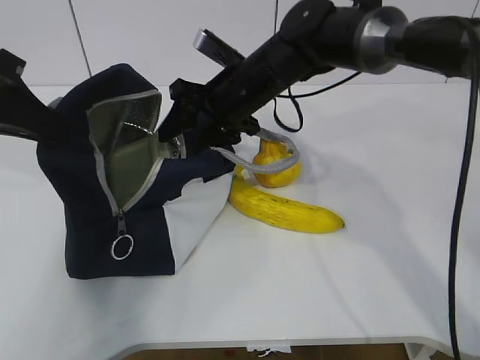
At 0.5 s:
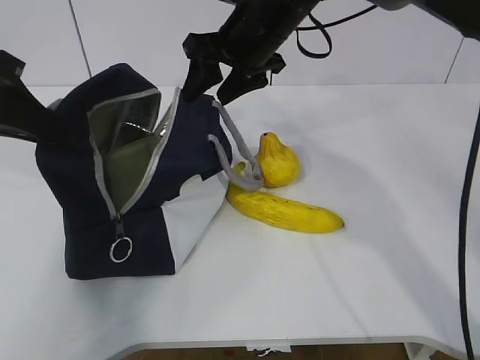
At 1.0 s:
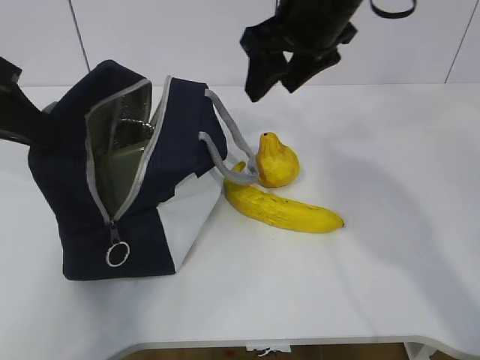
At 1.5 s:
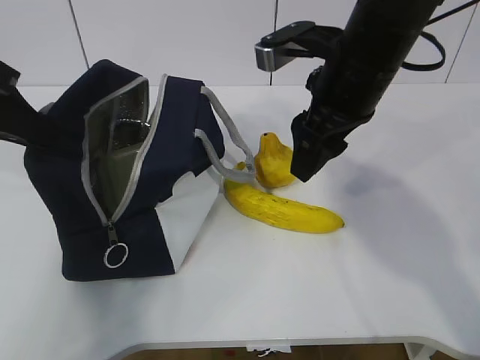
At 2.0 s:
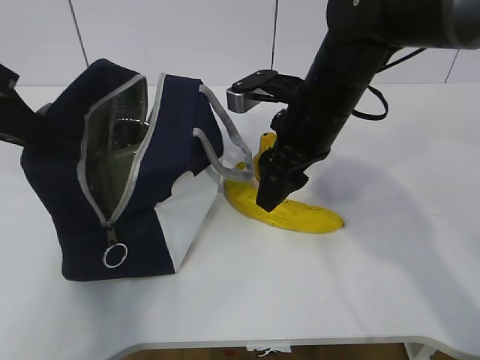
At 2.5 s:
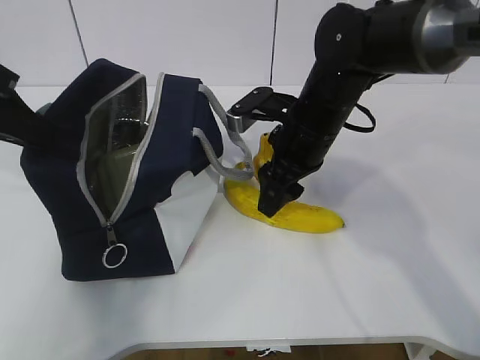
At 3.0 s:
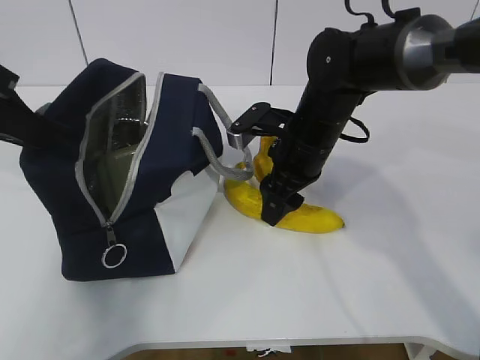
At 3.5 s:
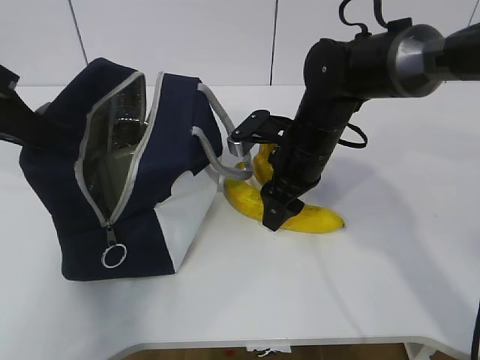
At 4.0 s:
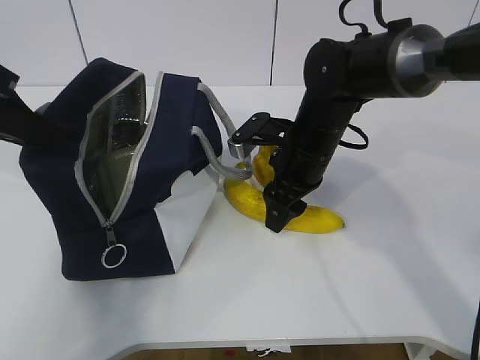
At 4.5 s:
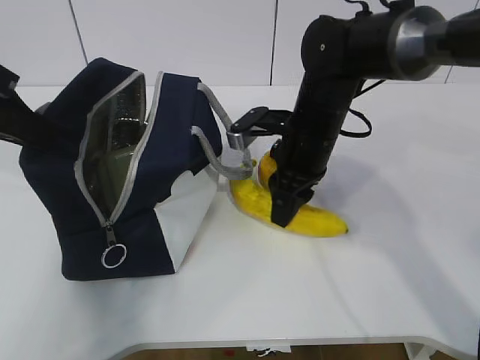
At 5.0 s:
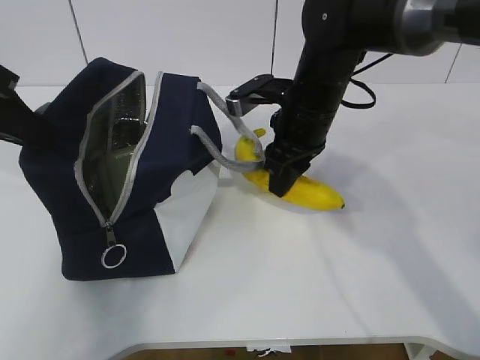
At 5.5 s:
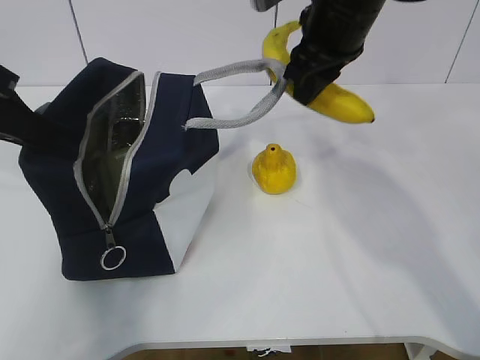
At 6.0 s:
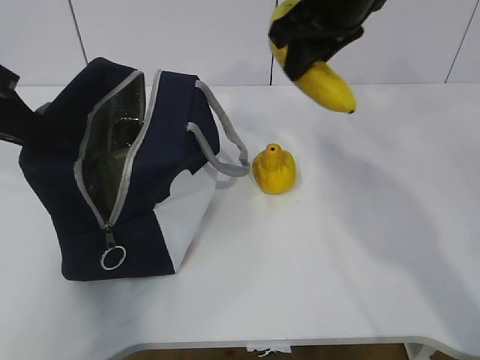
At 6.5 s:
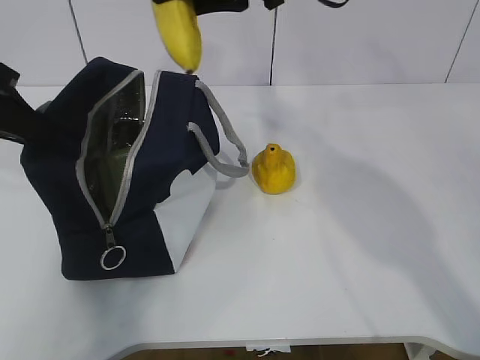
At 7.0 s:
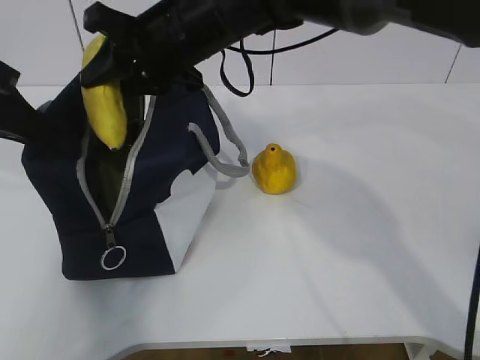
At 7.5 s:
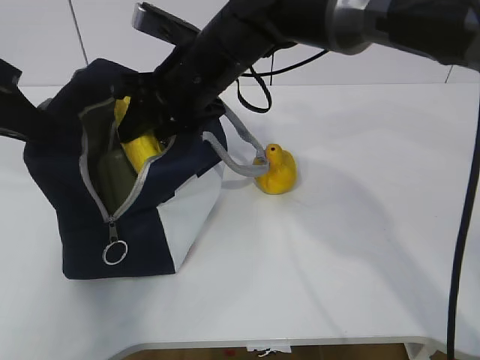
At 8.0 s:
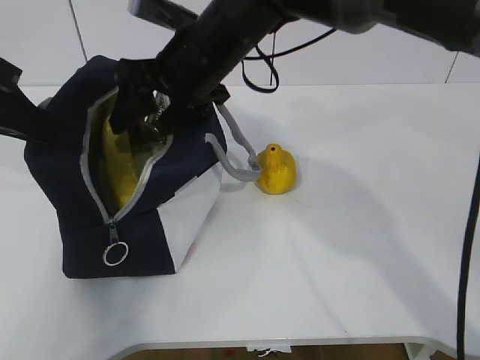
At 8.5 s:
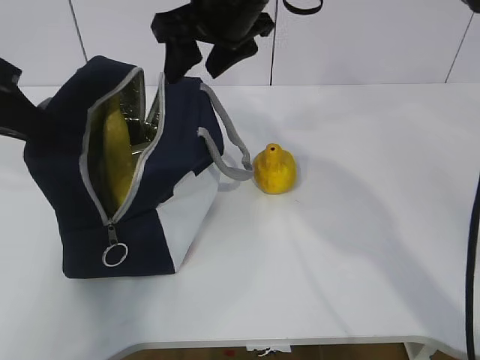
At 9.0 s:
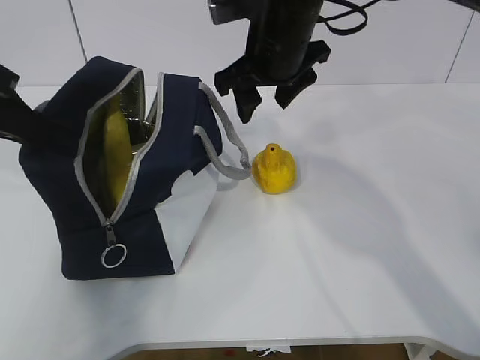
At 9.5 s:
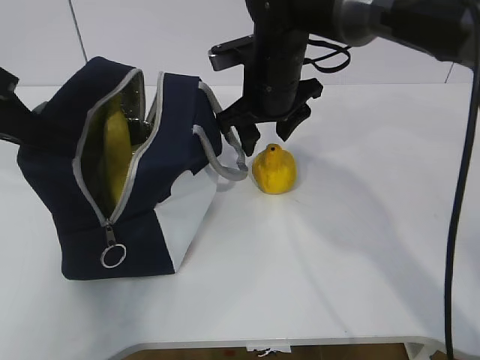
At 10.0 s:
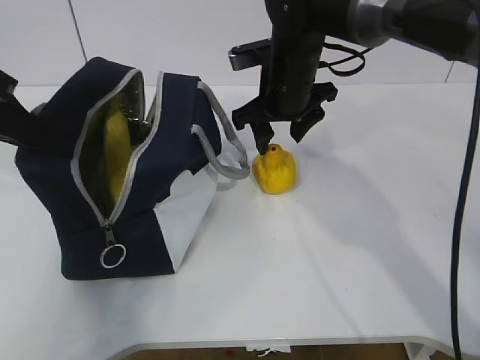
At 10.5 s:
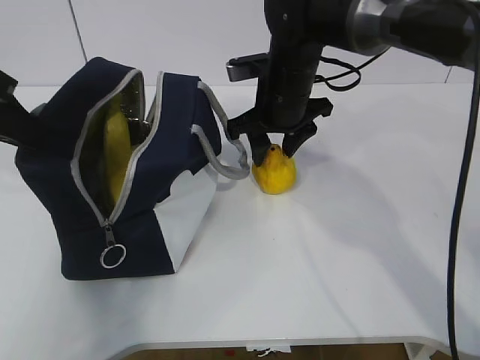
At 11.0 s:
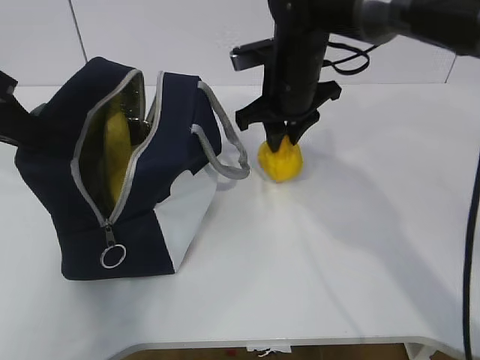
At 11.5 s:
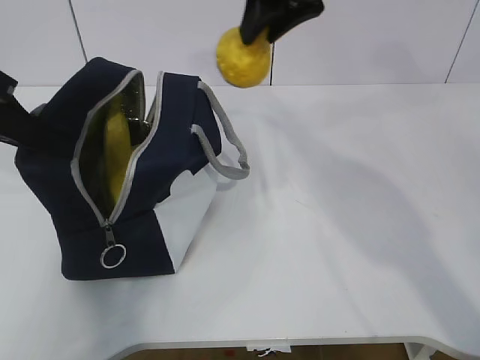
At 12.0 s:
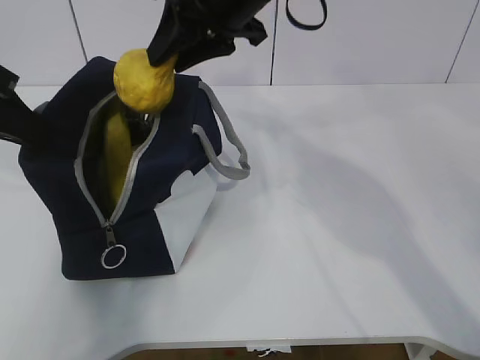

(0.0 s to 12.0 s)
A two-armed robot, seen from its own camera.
Step, 0.5 s - 4.0 s: Grasp the banana with the right gripper.
Step, 4.5 s - 8.0 s: Place the banana into the package with the right gripper.
Step, 8.5 s - 10.5 s: Grasp the pear with the right gripper.
0.0 s - 2.0 s: The right gripper is displaced backward and to the right by roughly 10 cm, and moves roughly 10 cm upward and comes back.
2.0 s - 4.0 s: The right gripper moves downward, some 5 cm.
4.0 s - 6.0 s: The right gripper moves upward, approximately 20 cm.
6.0 s - 8.0 s: The right gripper shifts some 15 cm to the left and downward, and opens up.
8.0 s - 10.0 s: The right gripper moves to the right and downward, about 10 cm.
10.0 s - 12.0 s: The right gripper heads upward and to the left, covering approximately 10 cm, and closes its fingers.

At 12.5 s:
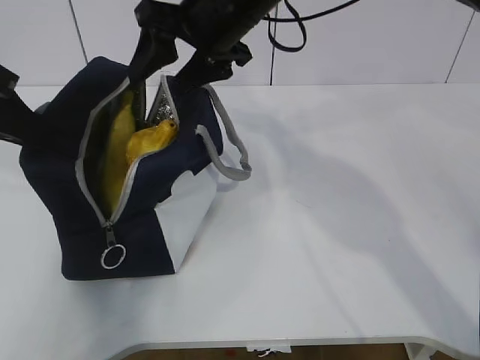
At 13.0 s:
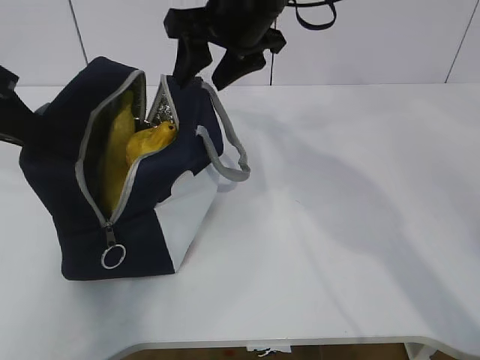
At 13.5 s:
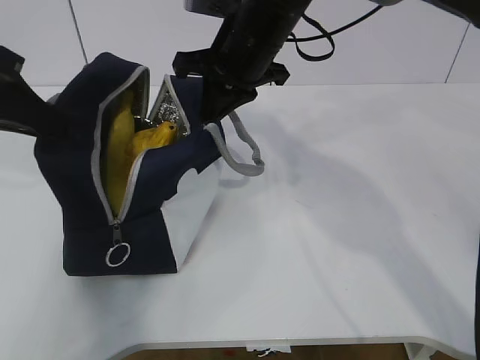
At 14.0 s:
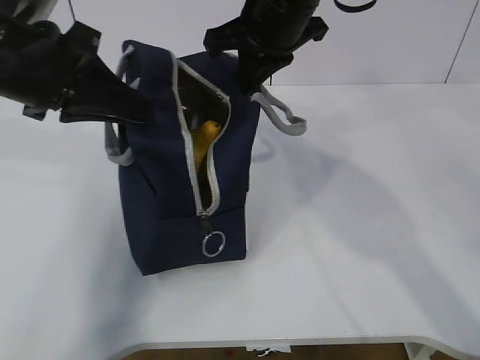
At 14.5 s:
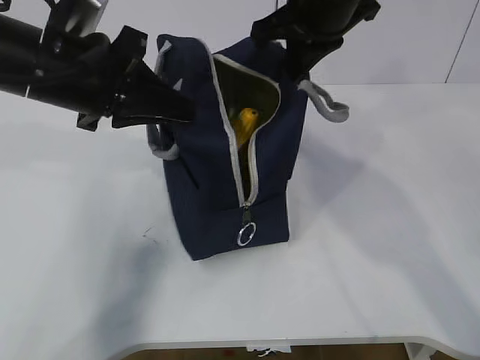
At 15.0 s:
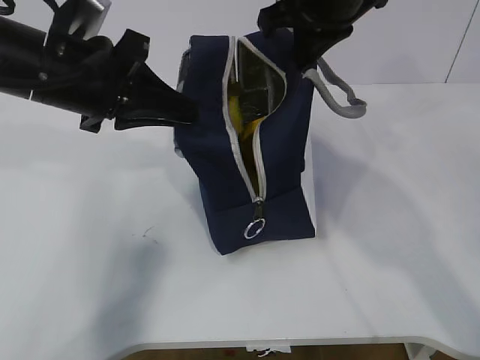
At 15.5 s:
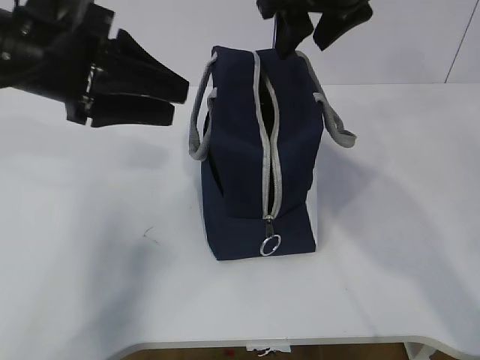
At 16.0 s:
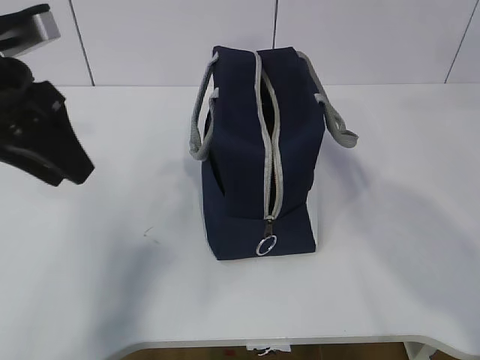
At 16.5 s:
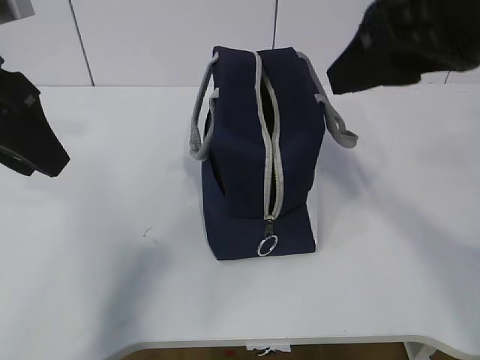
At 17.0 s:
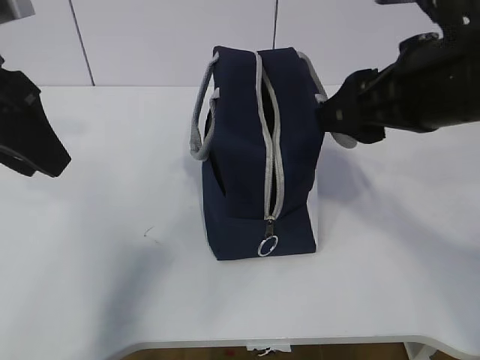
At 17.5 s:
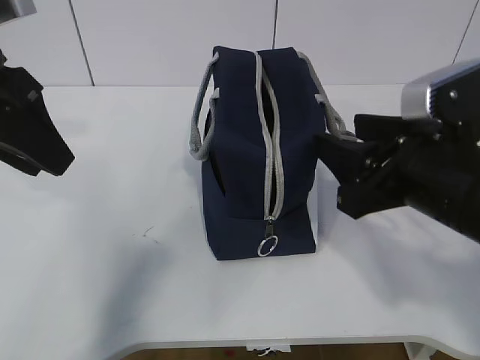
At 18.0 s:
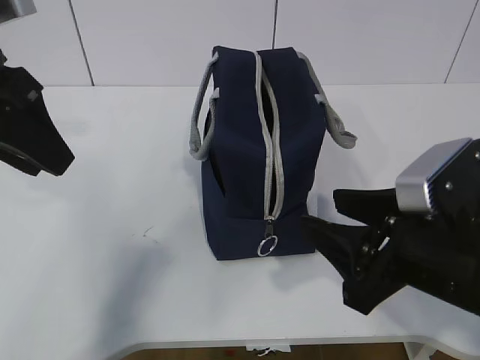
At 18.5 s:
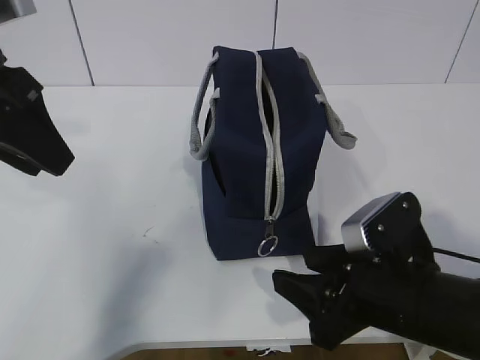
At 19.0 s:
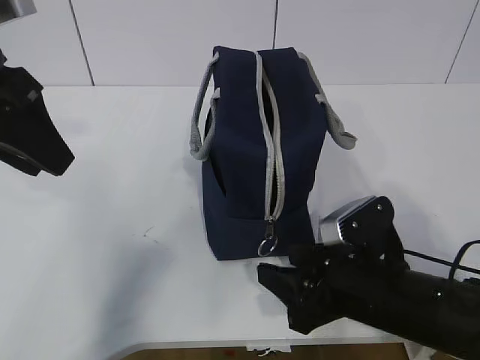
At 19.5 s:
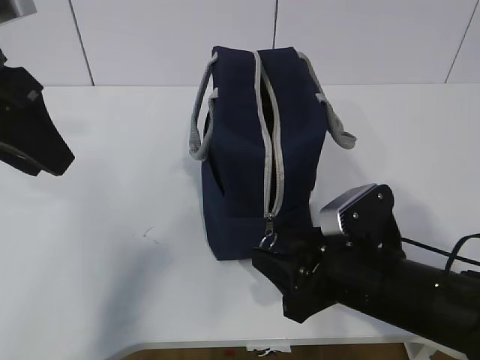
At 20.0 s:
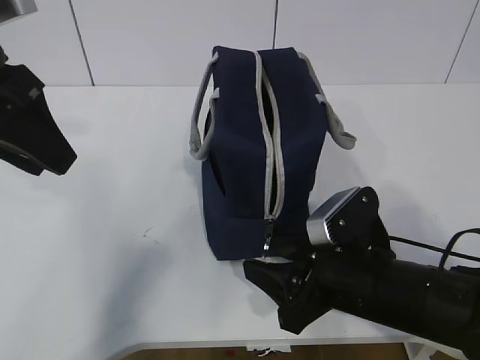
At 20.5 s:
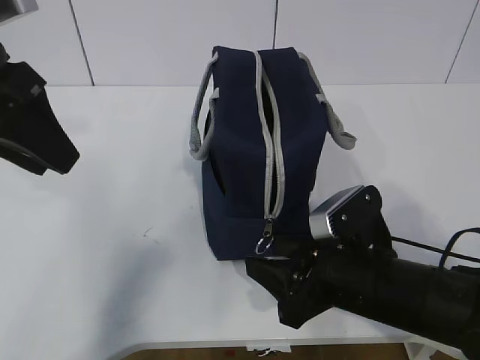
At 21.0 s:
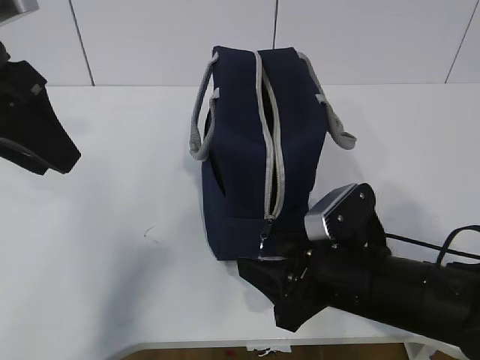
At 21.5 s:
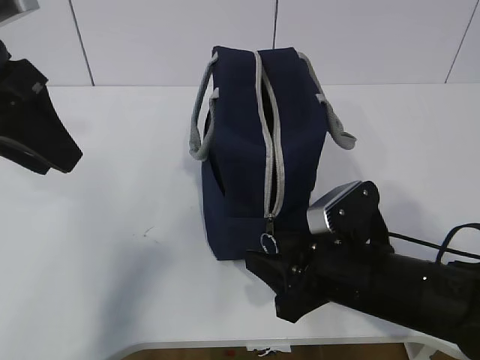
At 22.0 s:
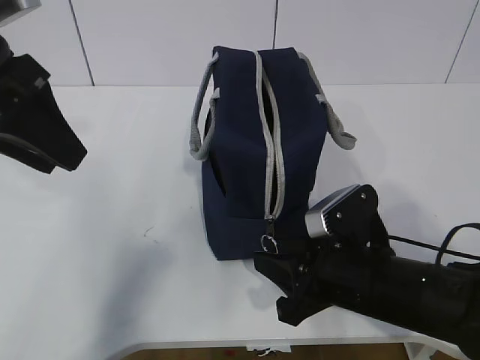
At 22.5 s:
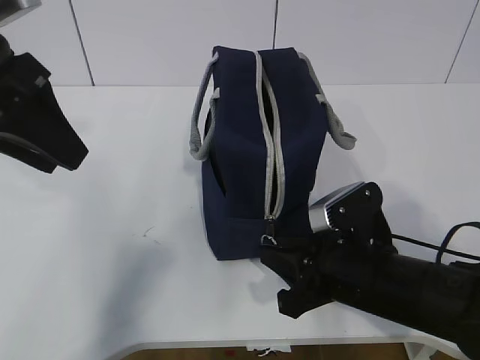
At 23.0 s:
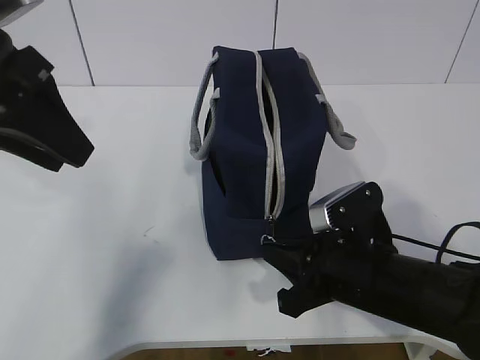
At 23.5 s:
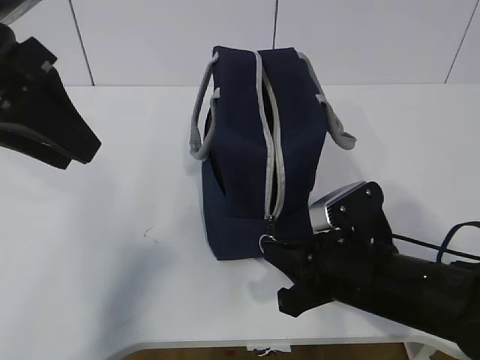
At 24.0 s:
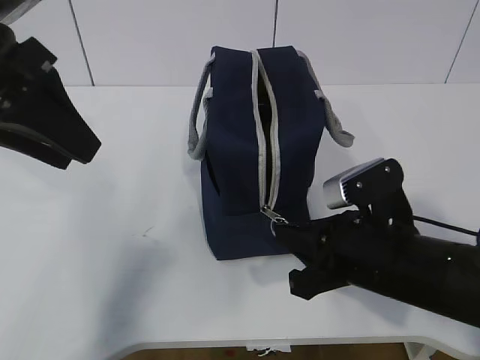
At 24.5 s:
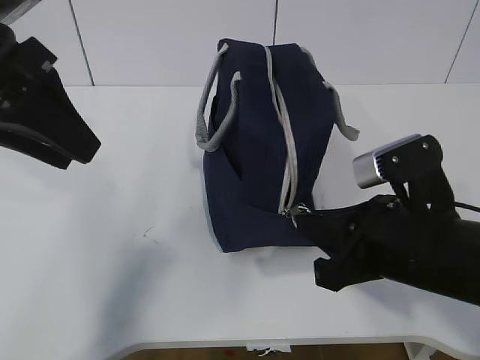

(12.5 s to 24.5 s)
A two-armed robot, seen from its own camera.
12.5 s - 14.5 s: The grippers both shift to the right by about 10 cm. The right gripper closes up.
14.5 s - 16.5 s: The right gripper shifts some 15 cm backward, and opens its fingers, while the left gripper shifts about 5 cm to the left, and opens up.
16.5 s - 18.5 s: The right gripper is displaced downward by some 25 cm.
18.5 s - 20.5 s: The grippers move only a little.
20.5 s - 22.5 s: The right gripper closes its fingers.
22.5 s - 24.5 s: The right gripper shifts about 5 cm upward.

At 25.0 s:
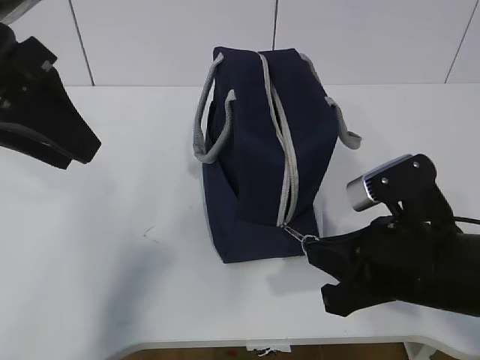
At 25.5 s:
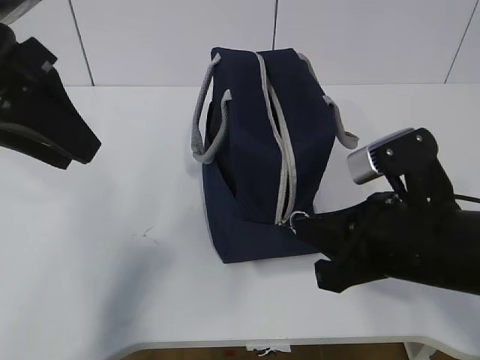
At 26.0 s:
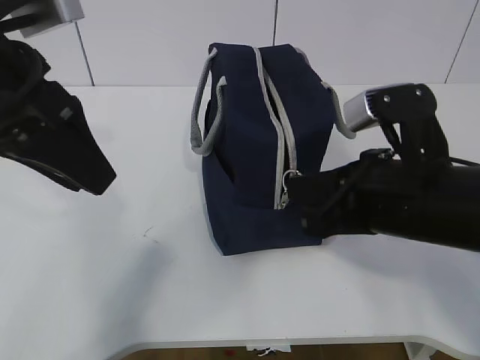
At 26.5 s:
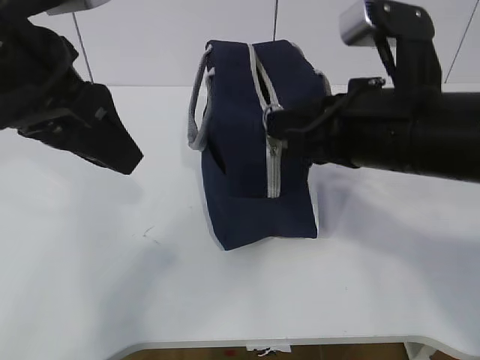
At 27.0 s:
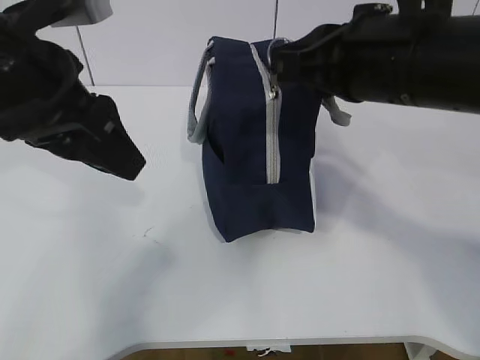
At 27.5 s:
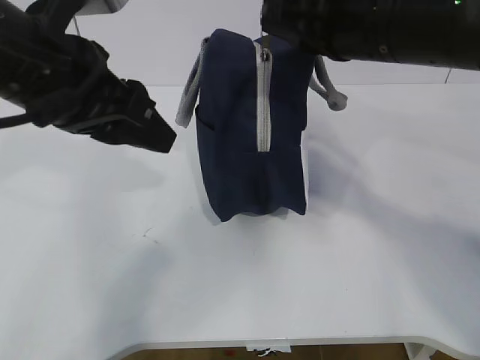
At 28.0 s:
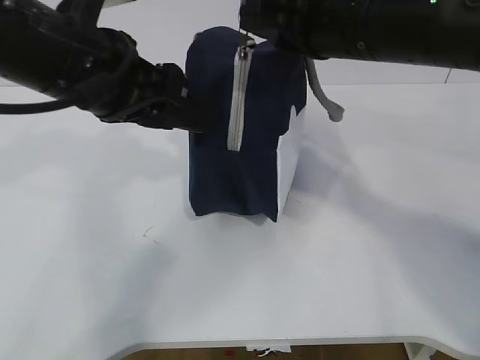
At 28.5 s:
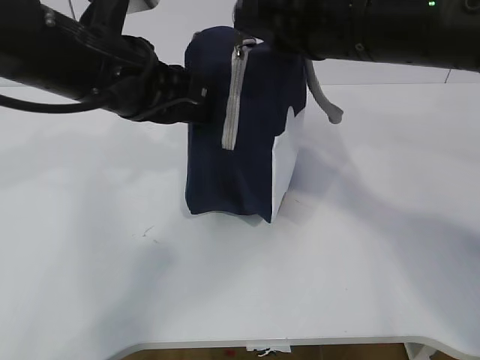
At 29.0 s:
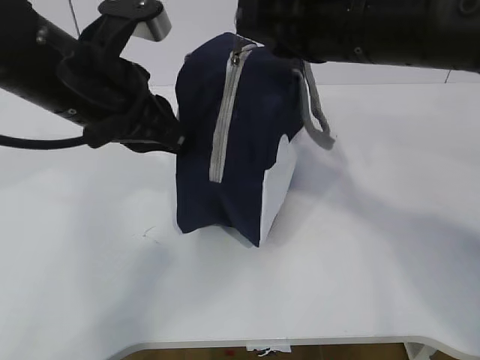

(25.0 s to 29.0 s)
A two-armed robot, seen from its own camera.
25.0 s - 27.0 s: The right gripper heads upward and forward, covering some 15 cm.
27.0 s - 29.0 s: The left gripper shifts by roughly 5 cm, and closes up.
